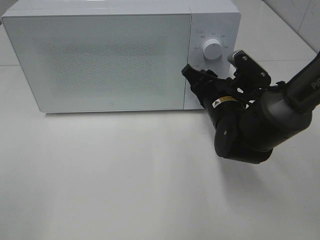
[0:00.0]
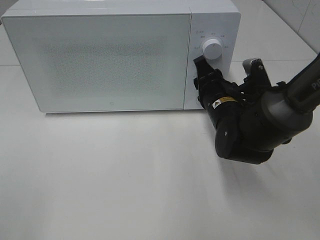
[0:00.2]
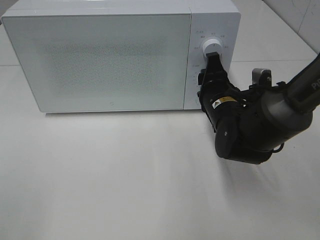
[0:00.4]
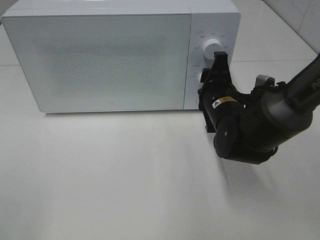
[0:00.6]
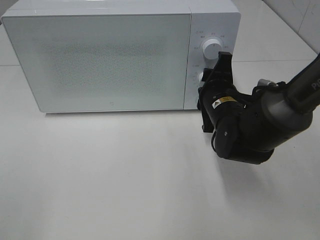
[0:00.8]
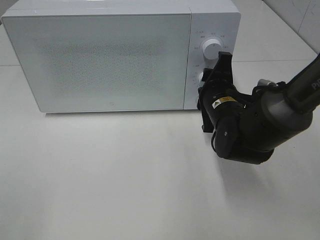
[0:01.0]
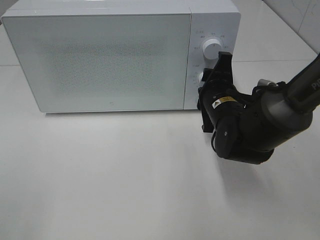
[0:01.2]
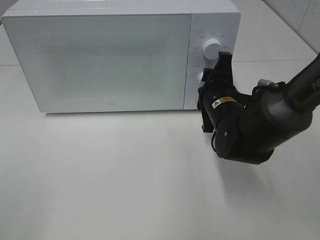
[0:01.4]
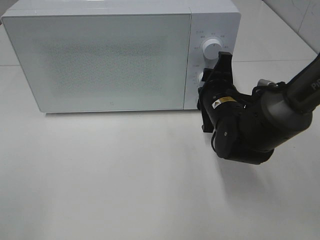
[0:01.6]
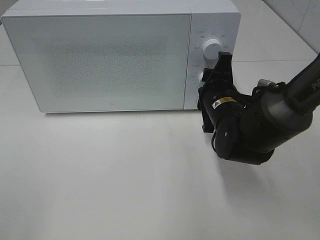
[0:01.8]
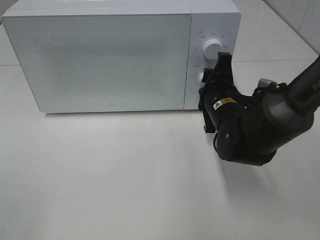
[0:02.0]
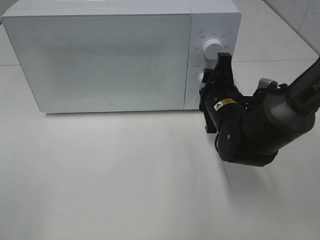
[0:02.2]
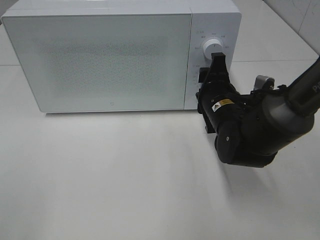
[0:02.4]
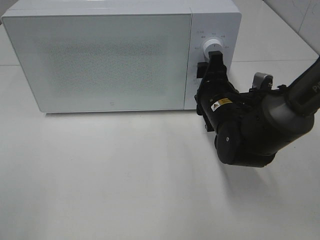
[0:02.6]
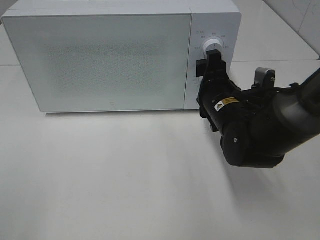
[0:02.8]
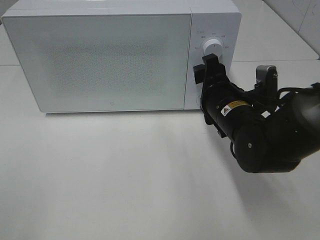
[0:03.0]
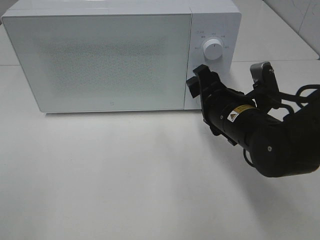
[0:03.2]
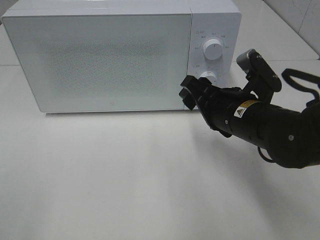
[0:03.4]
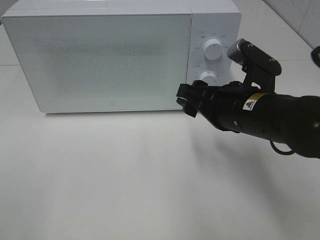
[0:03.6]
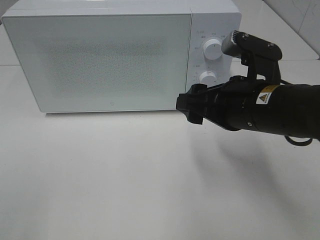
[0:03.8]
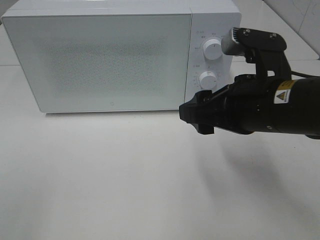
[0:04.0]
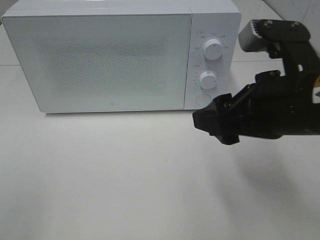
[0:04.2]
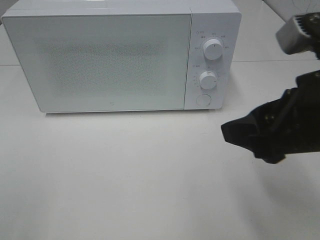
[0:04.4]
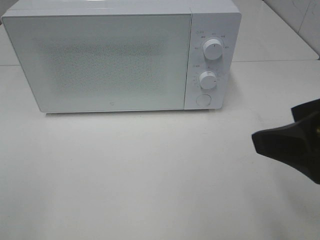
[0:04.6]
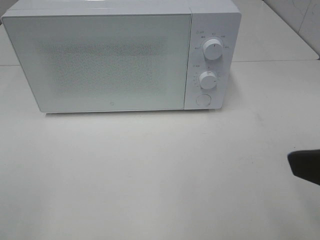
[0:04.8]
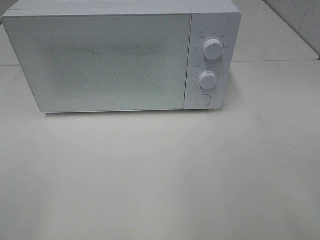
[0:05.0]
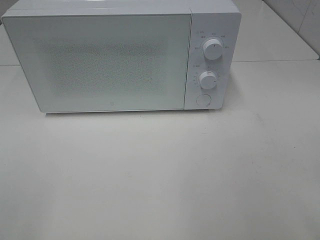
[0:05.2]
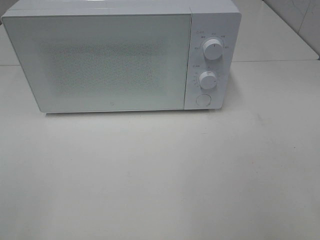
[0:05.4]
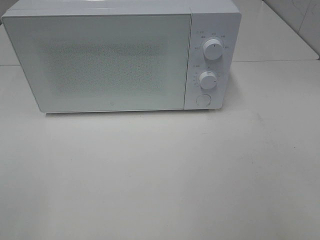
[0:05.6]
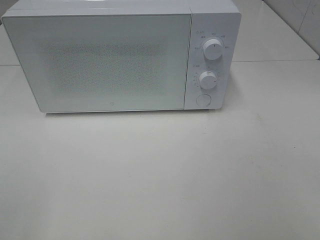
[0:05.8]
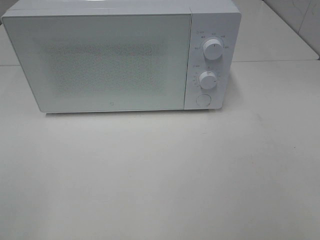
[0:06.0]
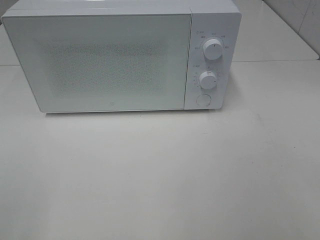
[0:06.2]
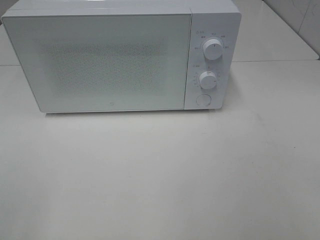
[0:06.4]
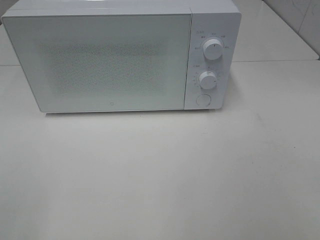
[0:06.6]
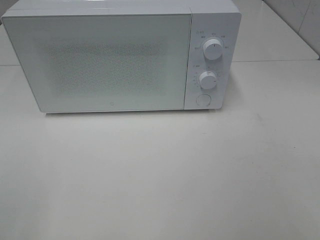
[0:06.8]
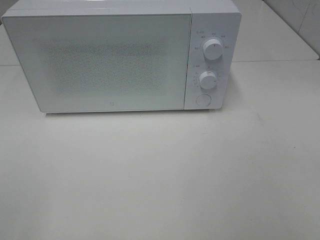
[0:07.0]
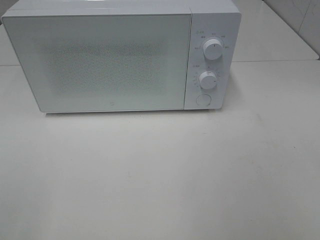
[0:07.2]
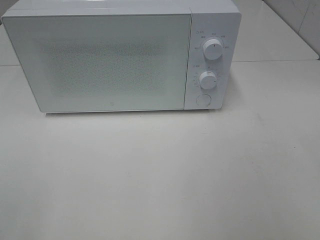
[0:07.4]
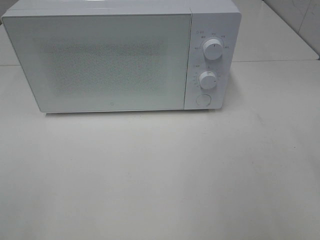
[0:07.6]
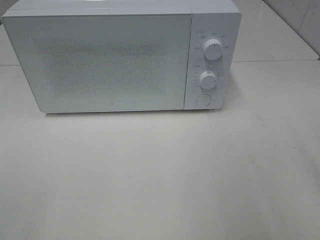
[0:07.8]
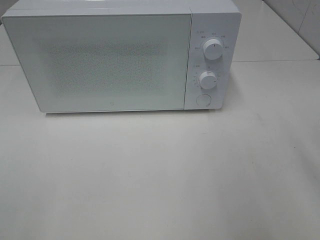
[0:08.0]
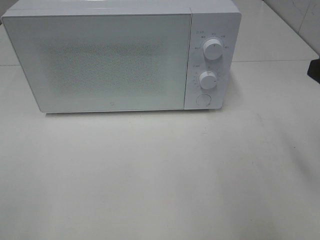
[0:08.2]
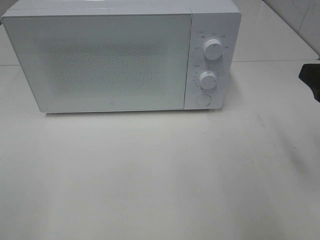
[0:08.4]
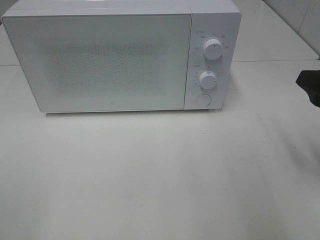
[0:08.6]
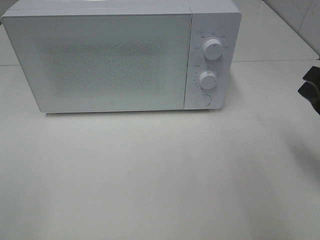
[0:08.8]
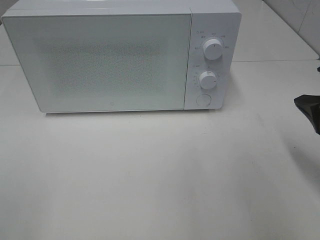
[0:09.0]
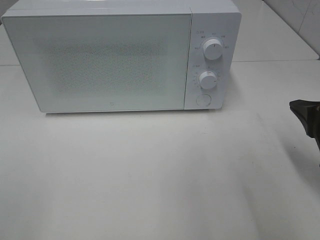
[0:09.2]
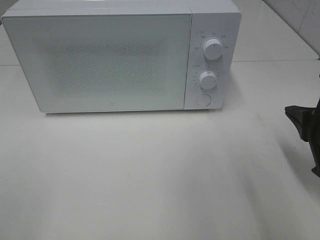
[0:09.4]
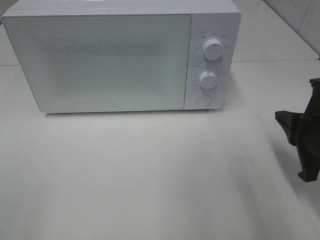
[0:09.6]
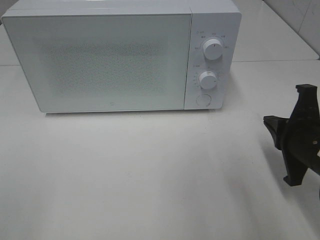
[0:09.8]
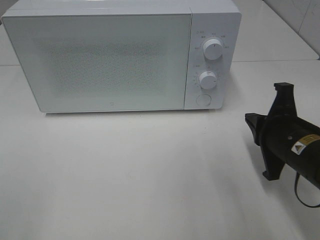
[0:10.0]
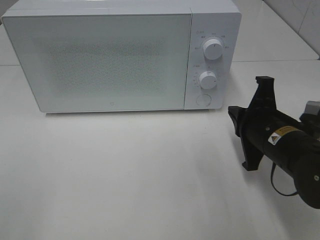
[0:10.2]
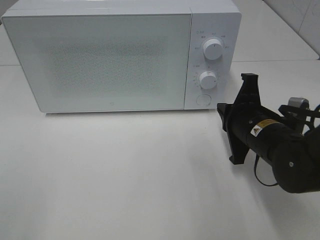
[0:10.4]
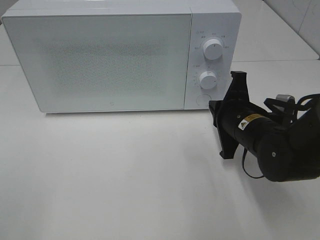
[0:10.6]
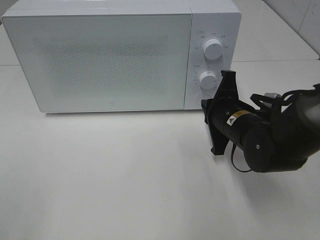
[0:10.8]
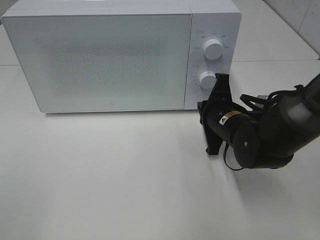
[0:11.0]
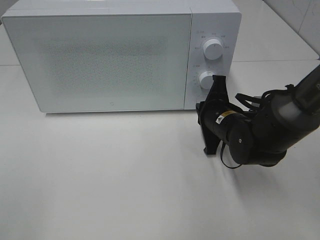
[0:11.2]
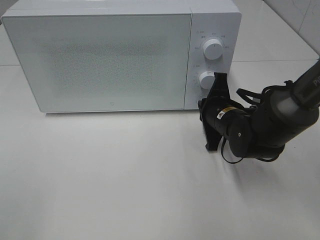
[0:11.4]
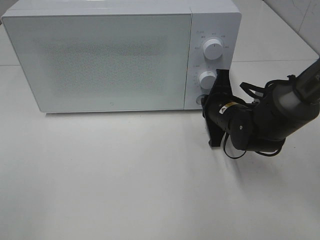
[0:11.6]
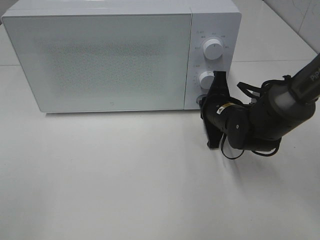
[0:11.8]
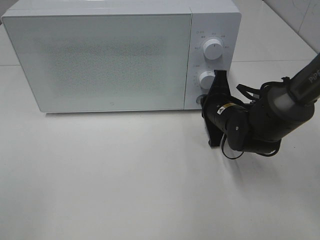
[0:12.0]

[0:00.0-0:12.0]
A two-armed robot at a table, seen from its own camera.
Task of the whole recording: Heat the burger.
Step, 0:00.0 to 0:02.4: Right hand: twist timer button.
0:03.0 to 0:04.4: The right gripper moves upward, backward and to the right, about 20 cm.
0:04.4 to 0:06.0: The right gripper travels backward and to the right by roughly 20 cm.
0:07.6 to 0:09.0: The right gripper goes approximately 15 cm downward and forward, and closes.
0:09.0 to 0:10.4: The right gripper heads to the left, downward and forward, covering roughly 15 cm.
0:10.4 to 0:12.0: The right gripper goes approximately 10 cm forward.

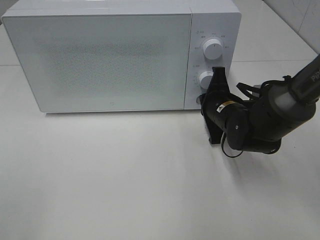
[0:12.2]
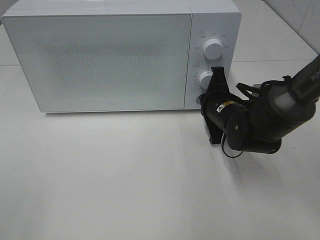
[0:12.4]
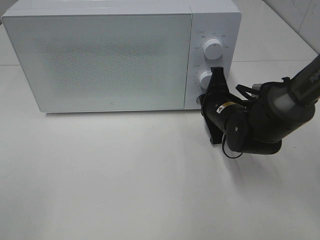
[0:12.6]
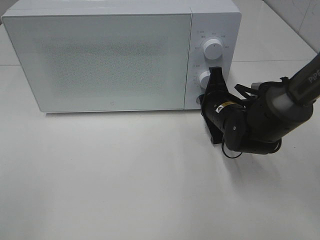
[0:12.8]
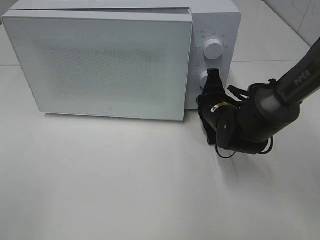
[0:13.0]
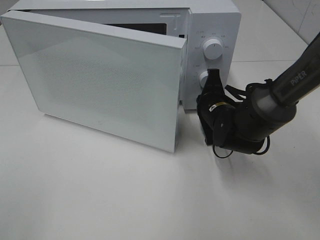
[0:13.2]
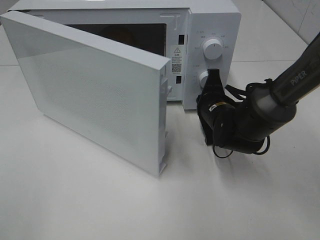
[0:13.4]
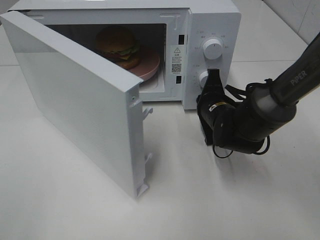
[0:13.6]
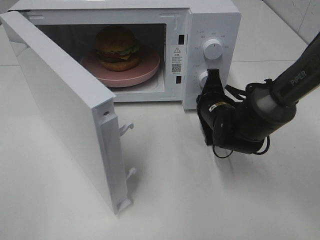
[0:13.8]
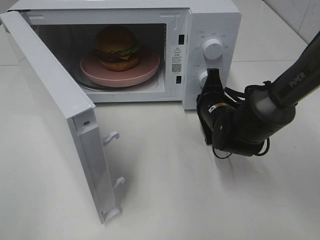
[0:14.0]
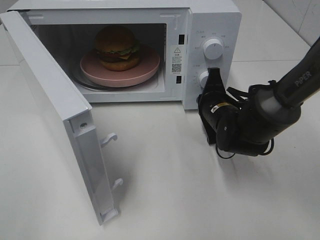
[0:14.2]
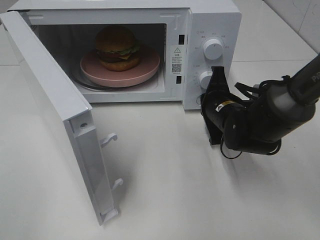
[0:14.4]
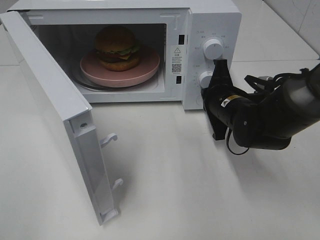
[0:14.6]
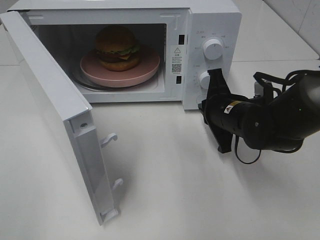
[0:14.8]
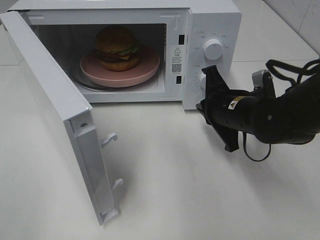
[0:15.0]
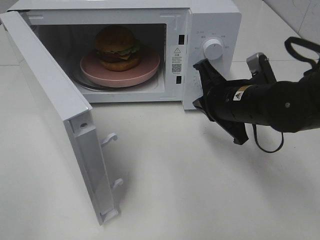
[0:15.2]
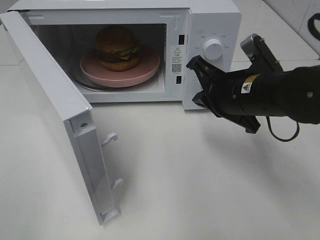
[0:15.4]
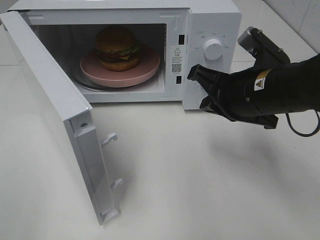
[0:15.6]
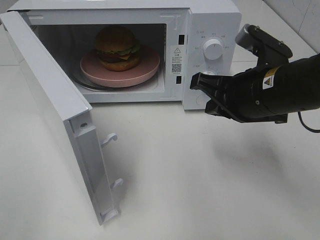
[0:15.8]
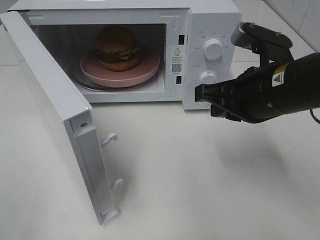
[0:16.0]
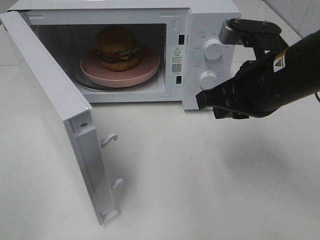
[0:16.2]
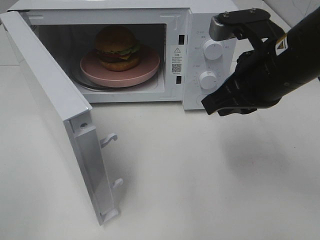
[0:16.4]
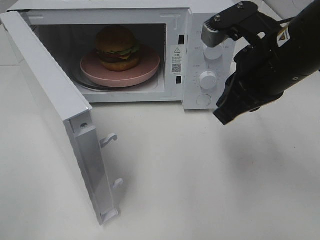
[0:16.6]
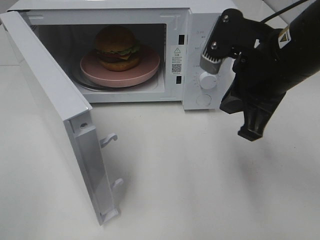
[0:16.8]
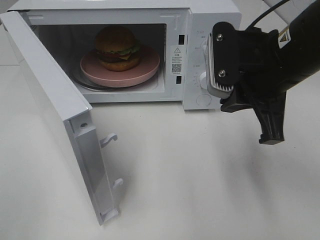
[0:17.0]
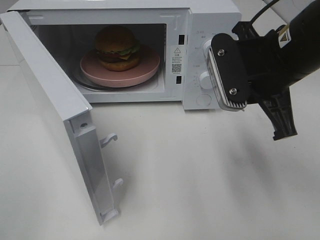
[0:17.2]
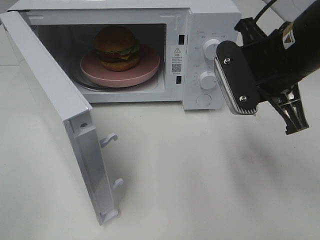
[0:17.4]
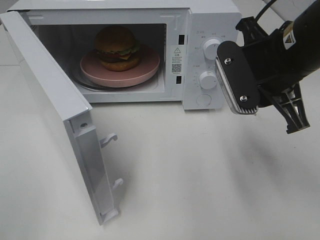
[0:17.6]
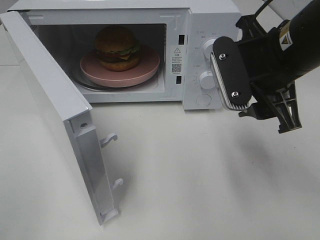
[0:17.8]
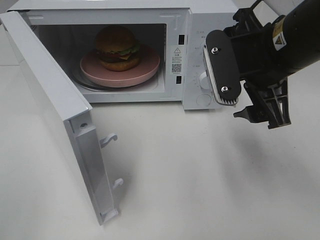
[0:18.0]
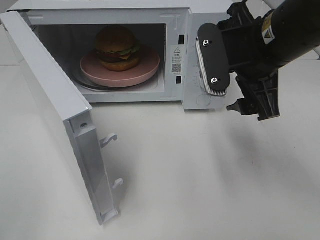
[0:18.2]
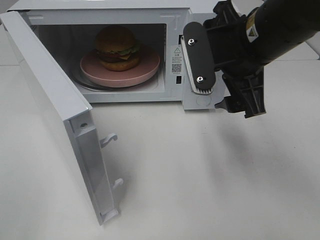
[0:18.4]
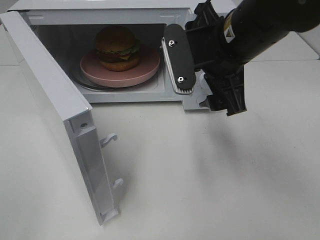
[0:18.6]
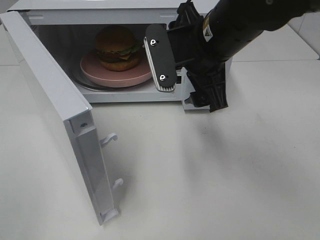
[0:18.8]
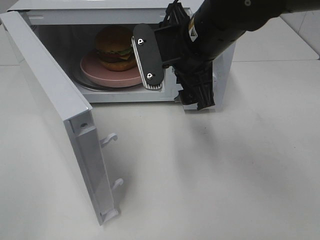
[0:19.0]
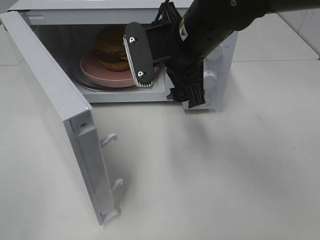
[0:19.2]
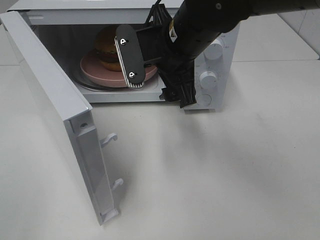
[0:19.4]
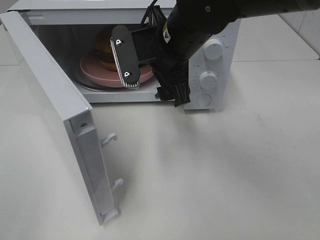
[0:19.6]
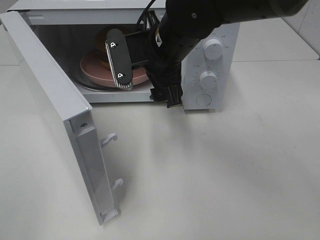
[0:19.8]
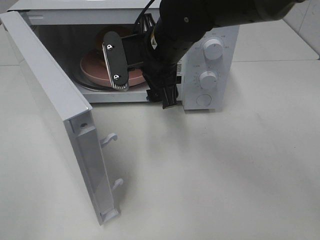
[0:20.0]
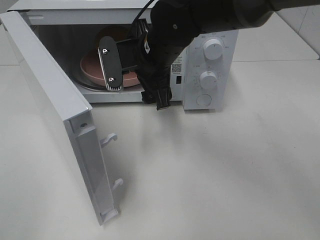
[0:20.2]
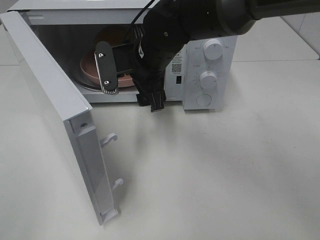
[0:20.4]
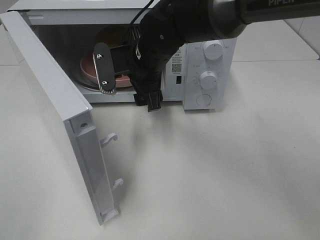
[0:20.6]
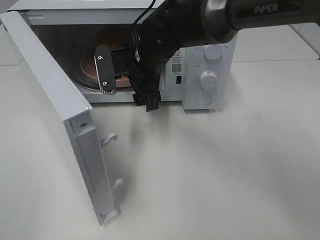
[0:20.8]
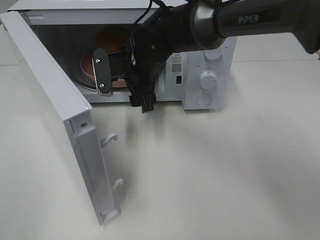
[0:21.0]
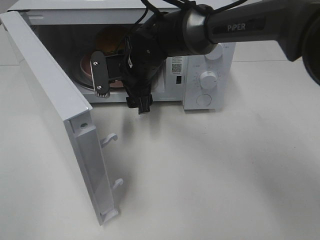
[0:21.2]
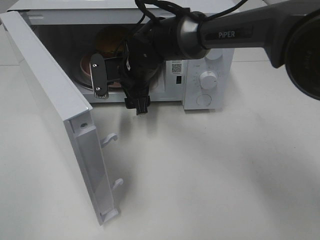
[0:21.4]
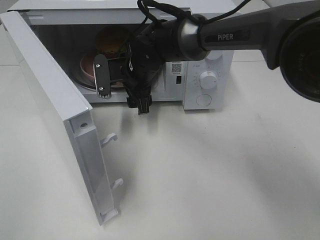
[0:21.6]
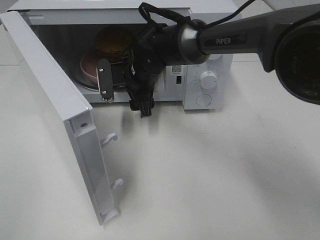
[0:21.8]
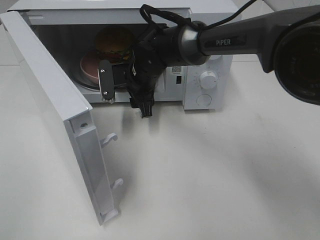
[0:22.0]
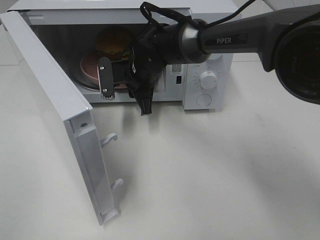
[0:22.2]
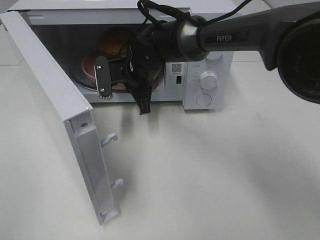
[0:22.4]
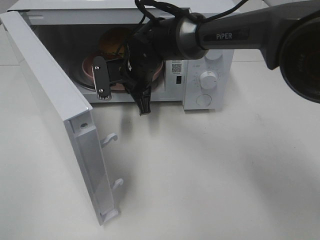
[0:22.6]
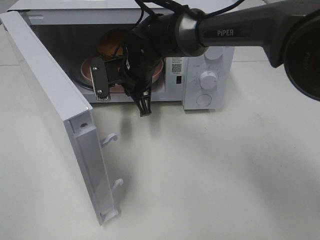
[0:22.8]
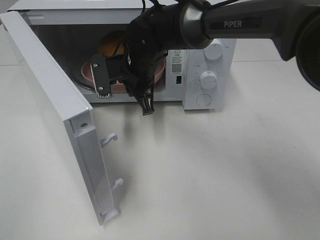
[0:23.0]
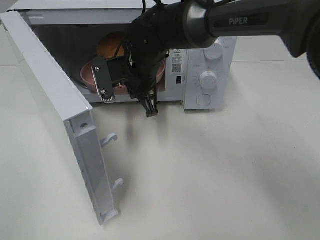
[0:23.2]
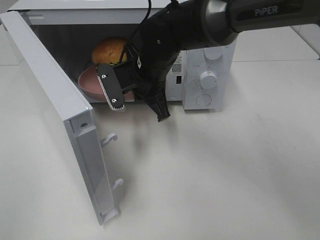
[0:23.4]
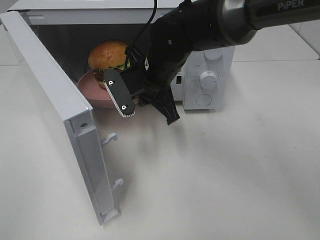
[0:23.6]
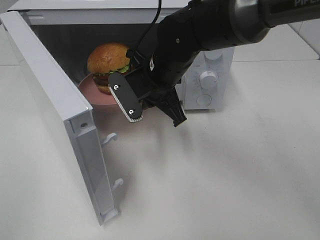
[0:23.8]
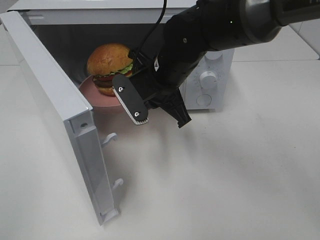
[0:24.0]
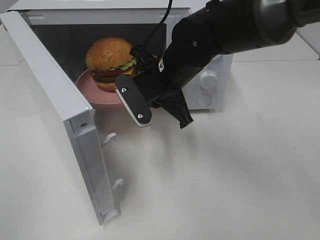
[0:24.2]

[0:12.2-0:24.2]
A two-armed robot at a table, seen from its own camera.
Task of the whole recording: Heat the burger.
Step, 0:12.2 to 0:14.4: Right hand: press the switch.
Step, 0:14.6 to 0:22.4: Right hand: grab the plate with the hamburger.
0:13.8 to 0:15.2: The right gripper moves upward and backward, about 10 cm.
0:15.2 to 0:16.6: The right gripper heads upward, covering about 10 cm.
0:16.6 to 0:18.2: The right gripper opens its fingers.
0:18.2 to 0:19.8: The right gripper goes about 15 cm to the left and forward.
0:19.8 to 0:21.2: The right gripper heads downward and forward, covering approximately 10 cm.
0:21.2 to 0:22.6: The right gripper closes its fingers.
0:22.6 to 0:24.2: The right gripper shifts some 10 cm backward and to the right.
